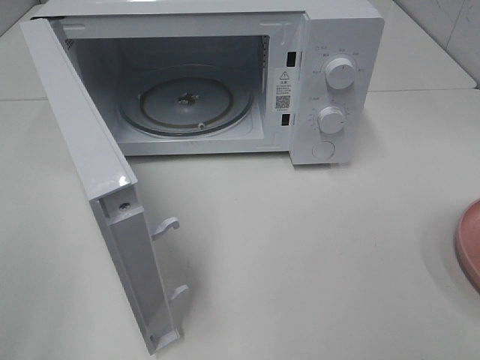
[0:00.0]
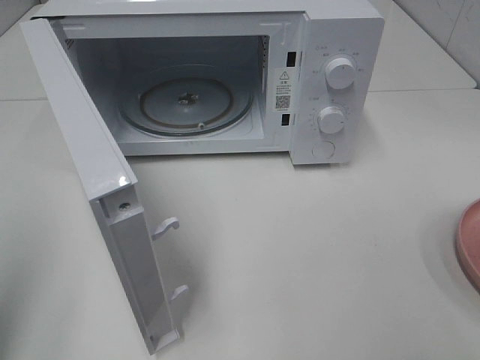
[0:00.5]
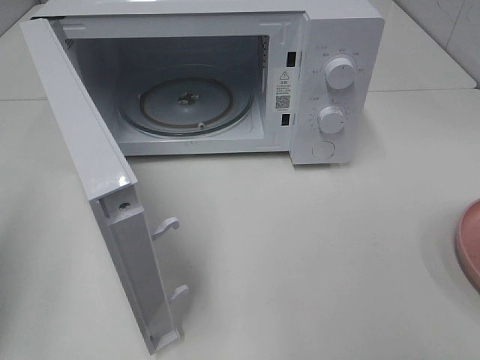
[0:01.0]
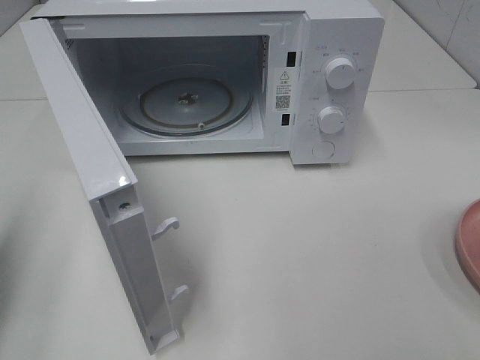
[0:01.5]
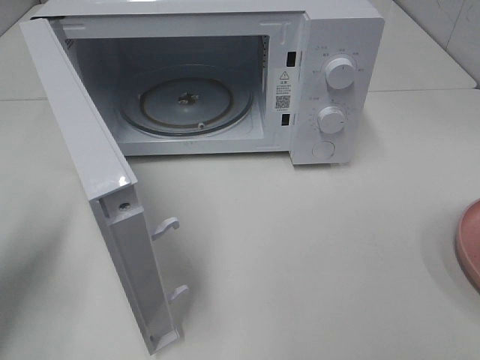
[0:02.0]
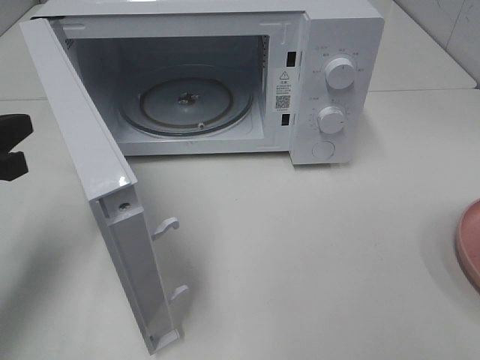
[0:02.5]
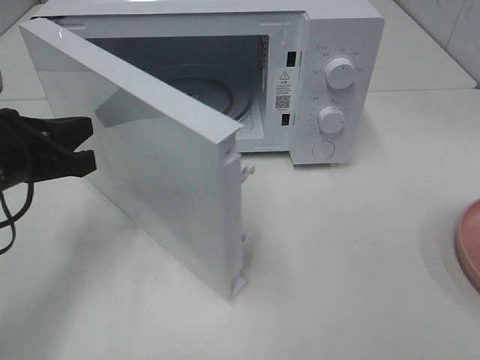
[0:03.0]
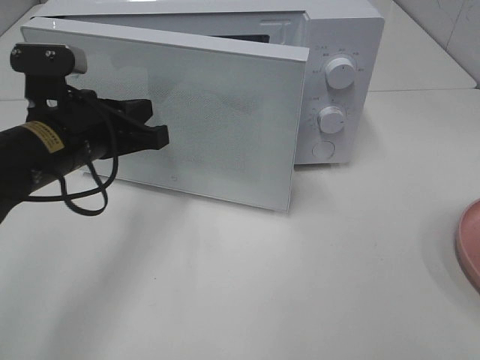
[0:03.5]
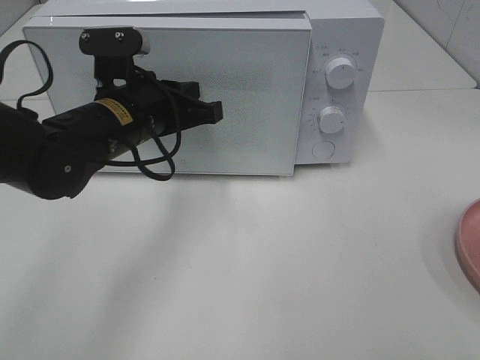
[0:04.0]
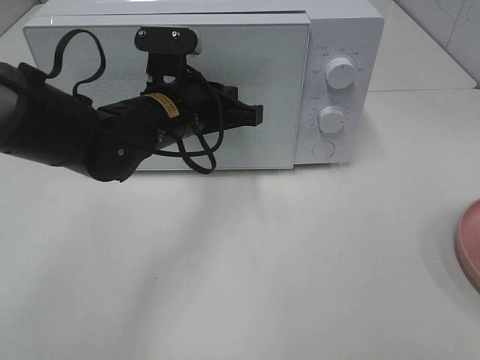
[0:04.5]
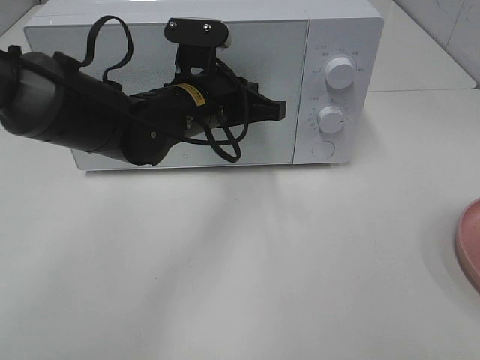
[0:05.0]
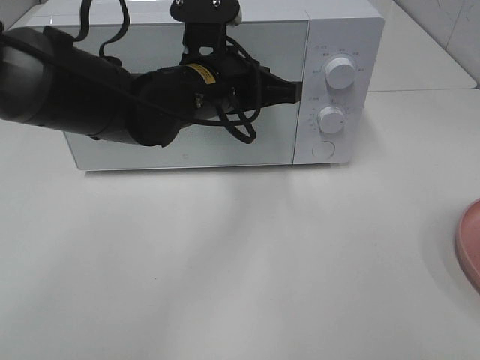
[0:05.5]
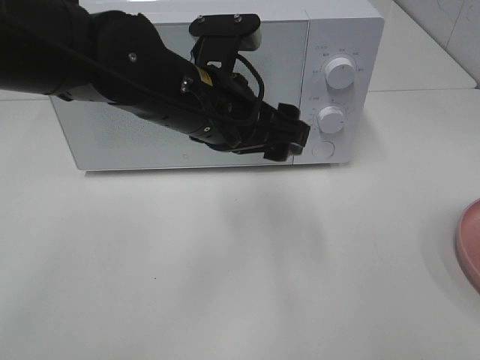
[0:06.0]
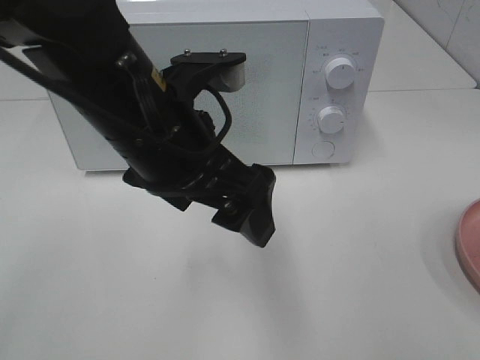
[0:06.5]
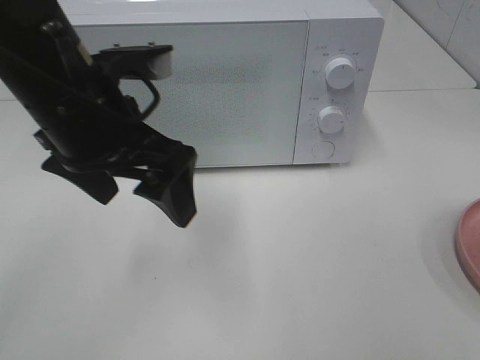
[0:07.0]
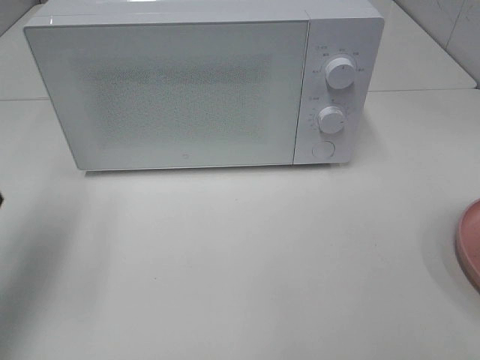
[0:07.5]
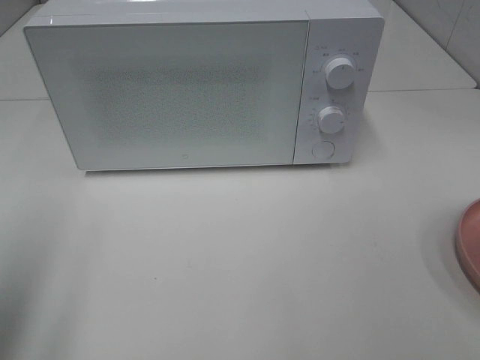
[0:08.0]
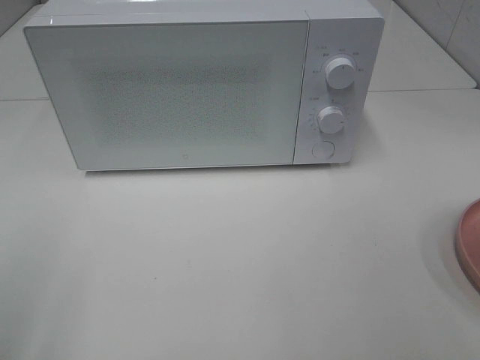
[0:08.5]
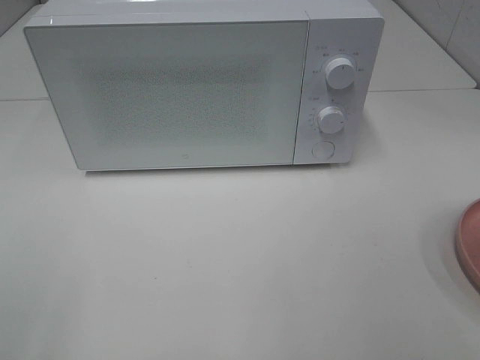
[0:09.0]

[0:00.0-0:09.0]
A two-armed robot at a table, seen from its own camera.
Task of the whole recording: Heat the burger.
Step, 0:00.0 to 0:05.0: Left hand: close the microwave door.
0:00.0 to 0:02.0: The left gripper is displaced forward and downward by some 20 cm, and closes.
0:02.0 to 0:04.5: The left gripper moves to the right and forward, approximately 30 cm.
0:04.5 to 0:07.0: The left gripper goes about 15 cm upward, backward and to the left, and opens up.
0:07.0 to 0:09.0: The left gripper goes approximately 30 cm backward and to the left.

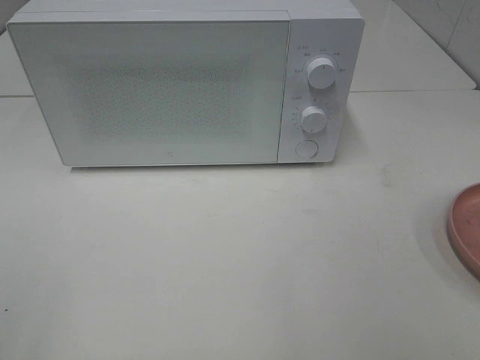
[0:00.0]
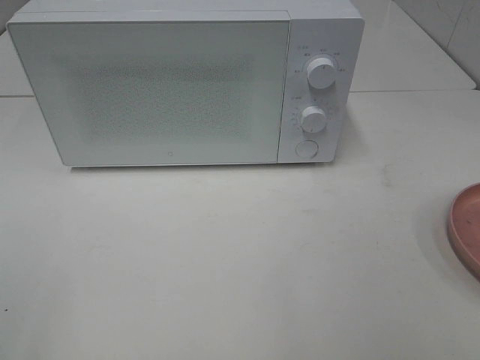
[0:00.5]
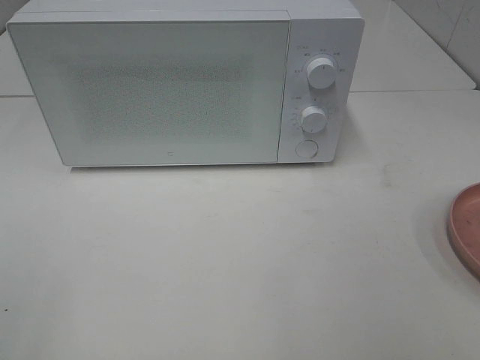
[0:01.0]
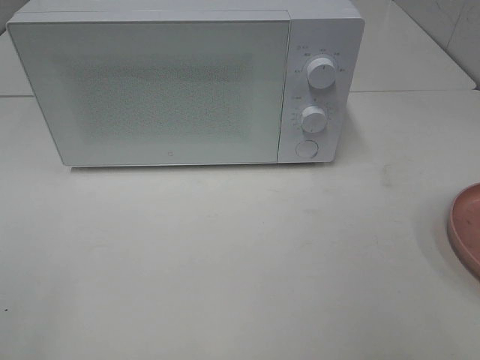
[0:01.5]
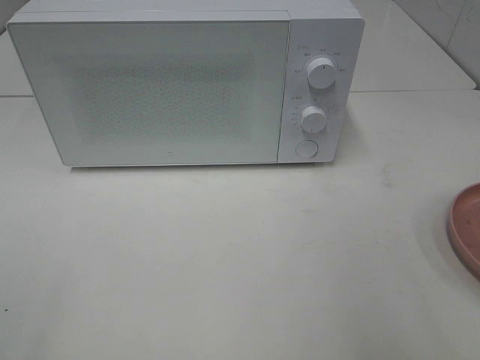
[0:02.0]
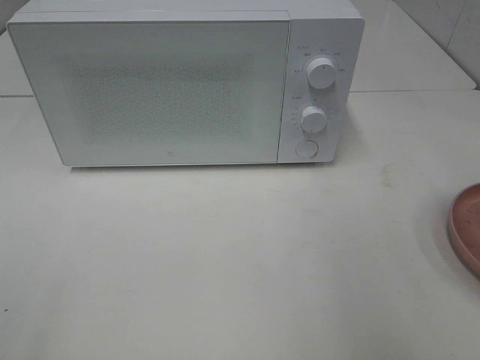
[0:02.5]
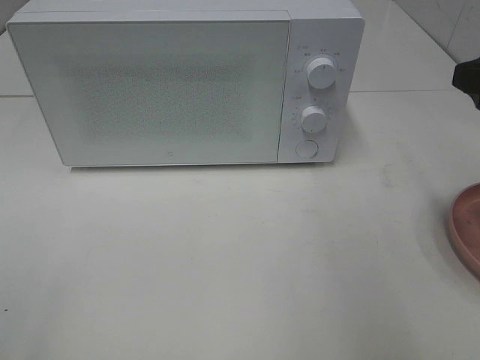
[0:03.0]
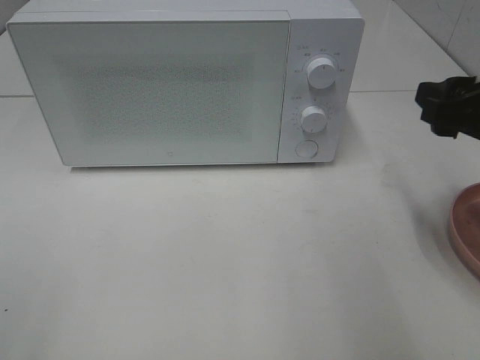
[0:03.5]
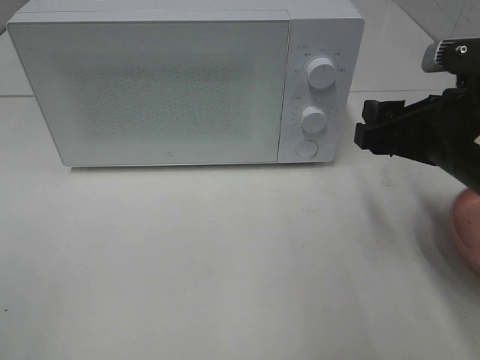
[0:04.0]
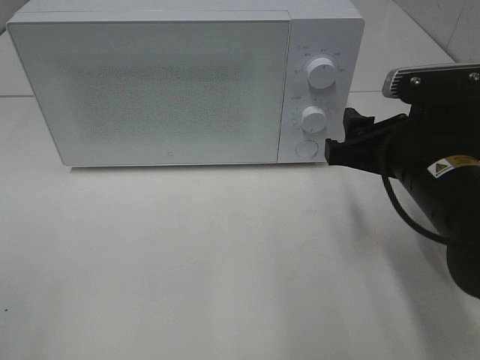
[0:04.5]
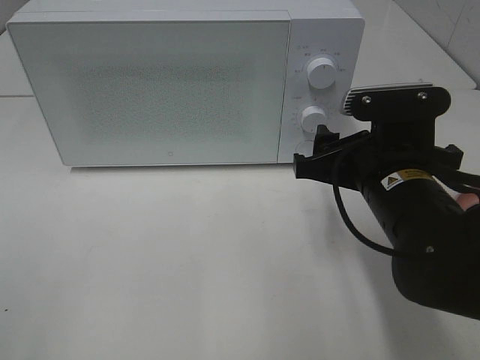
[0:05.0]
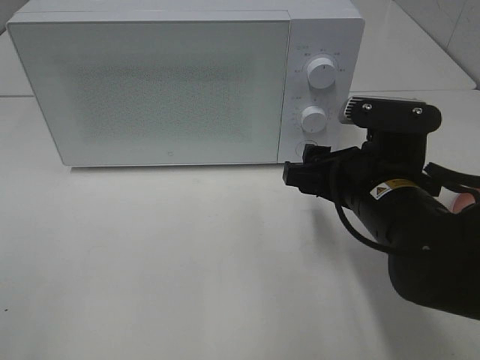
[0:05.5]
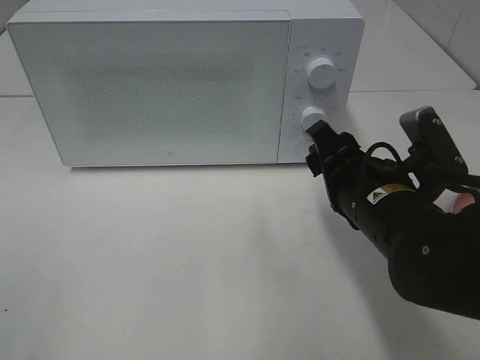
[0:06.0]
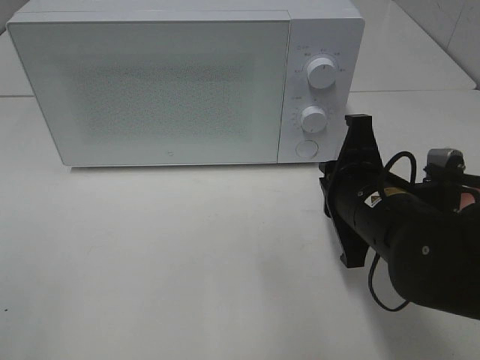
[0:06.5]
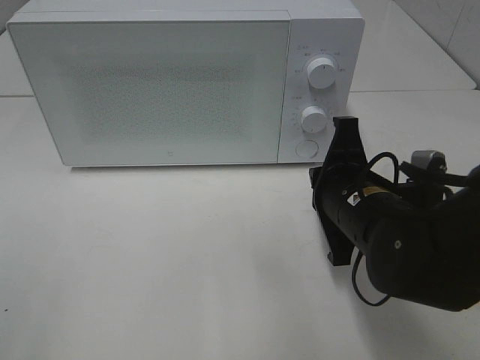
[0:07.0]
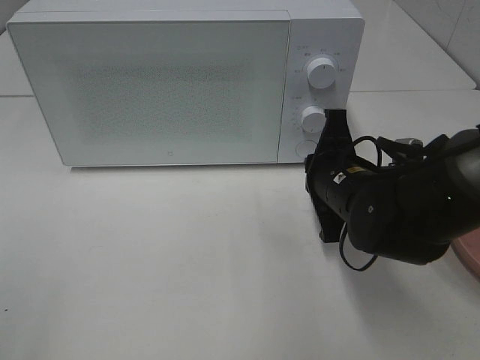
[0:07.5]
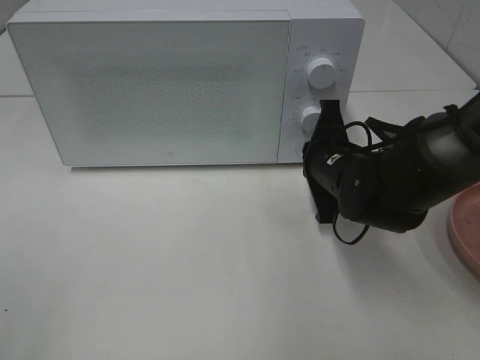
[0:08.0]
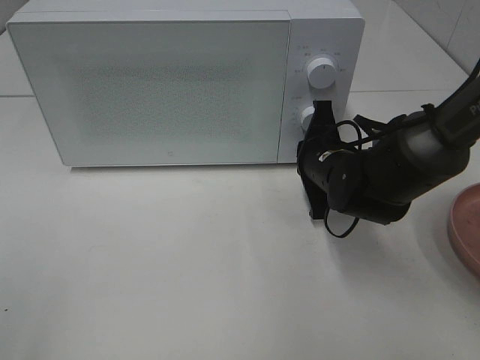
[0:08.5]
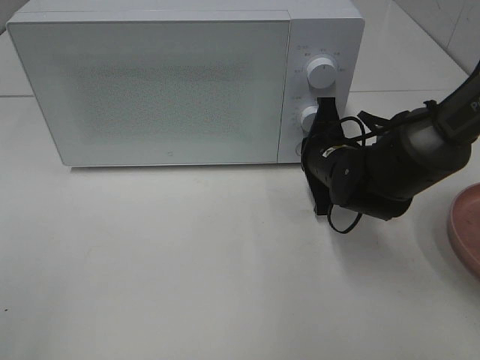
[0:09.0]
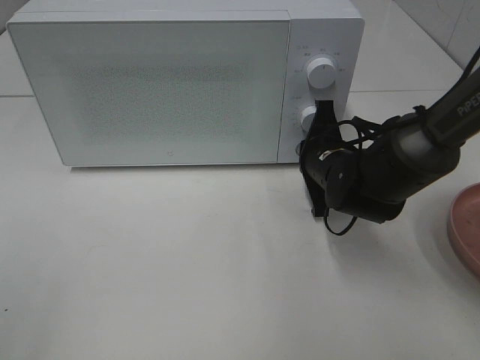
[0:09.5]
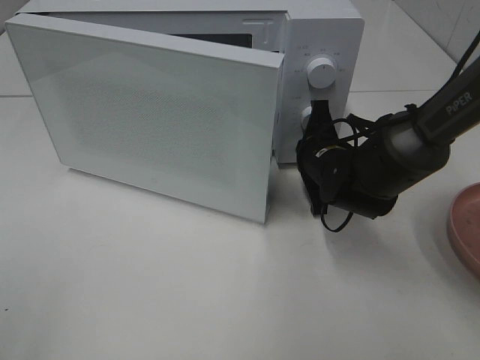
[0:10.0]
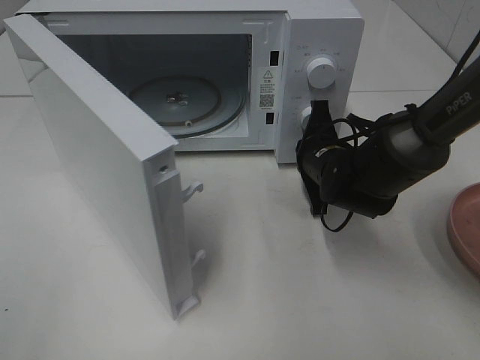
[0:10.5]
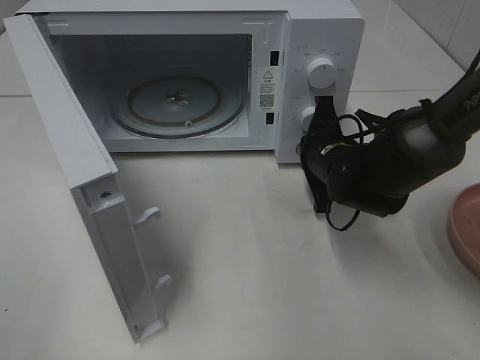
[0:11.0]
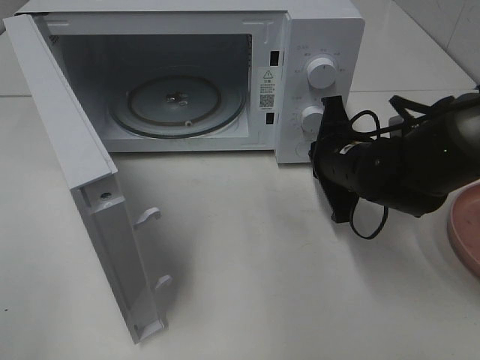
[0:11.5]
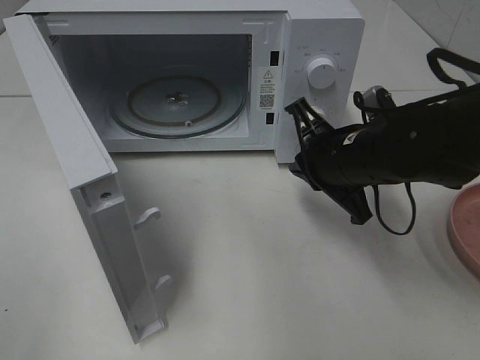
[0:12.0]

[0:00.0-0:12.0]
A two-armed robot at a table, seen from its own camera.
Task of the whole recording: Heat the burger.
Step, 0:00.0 to 0:11.5: Right hand: press the switch.
0:02.0 to 0:04.0: The right gripper is displaced forward, downward and to the left by about 15 cm.
0:04.0 to 0:06.0: The right gripper is displaced to the left and downward by about 10 cm.
0:06.0 to 0:08.0: The right gripper goes some 10 cm forward, and closes up.
0:08.0 to 0:10.0: The grippers stay close to where they were, moving slightly.
0:10.0 to 0:12.0: The right gripper heads backward and upward, covering some 10 cm.

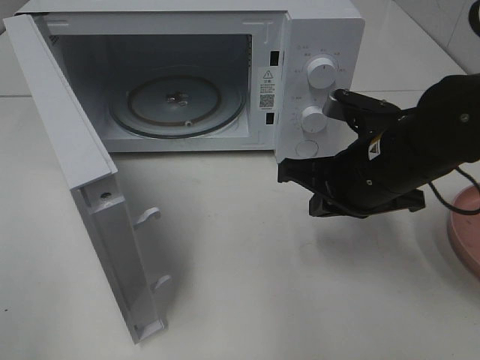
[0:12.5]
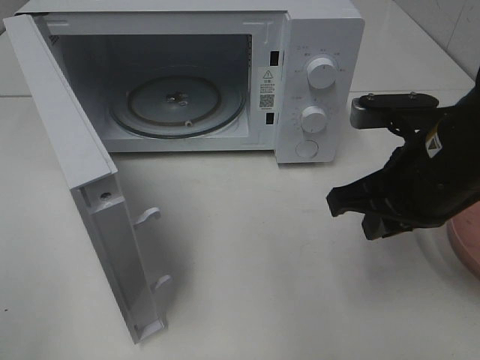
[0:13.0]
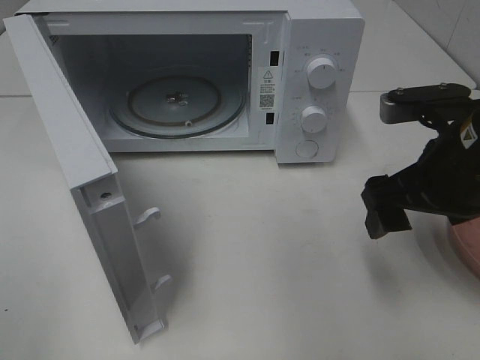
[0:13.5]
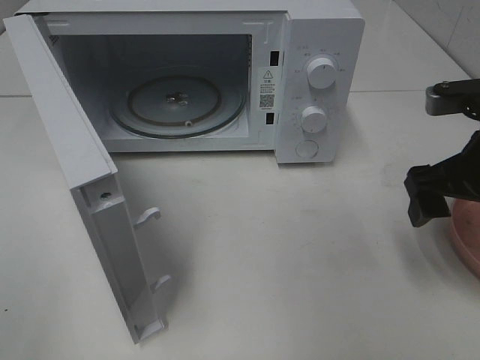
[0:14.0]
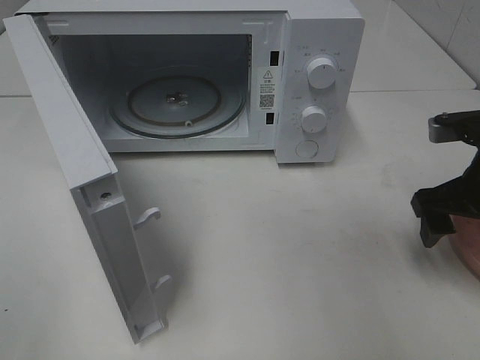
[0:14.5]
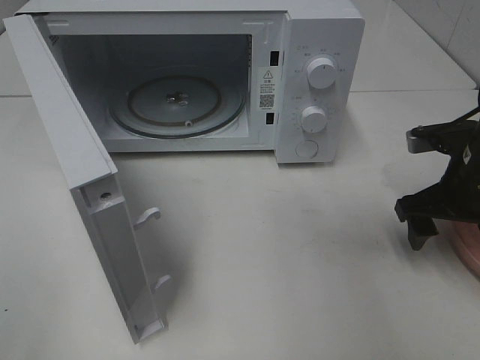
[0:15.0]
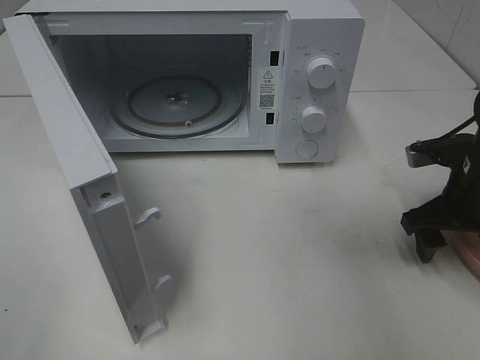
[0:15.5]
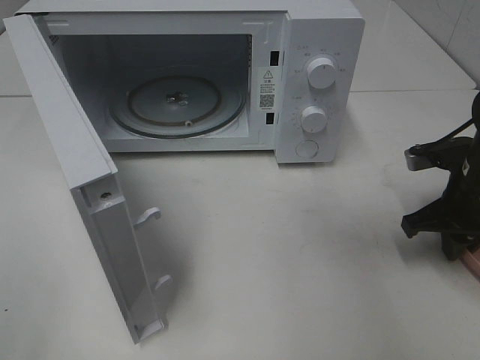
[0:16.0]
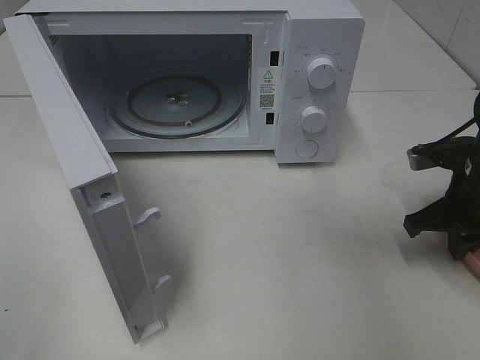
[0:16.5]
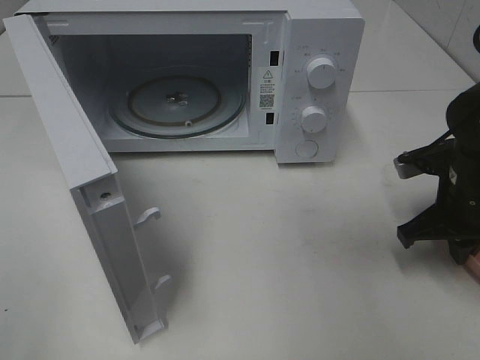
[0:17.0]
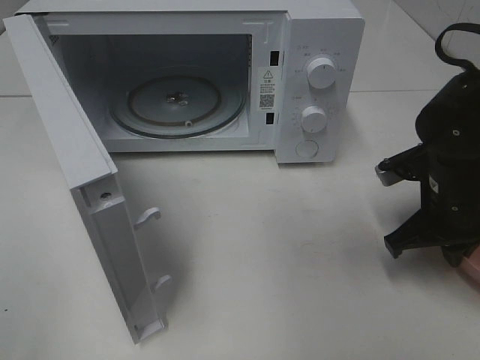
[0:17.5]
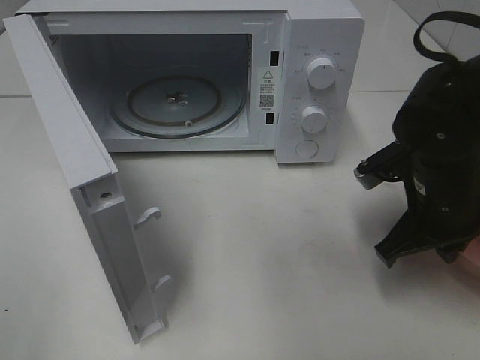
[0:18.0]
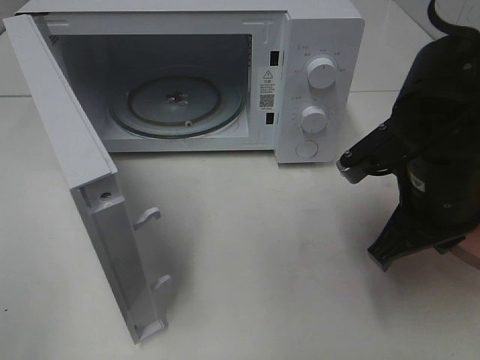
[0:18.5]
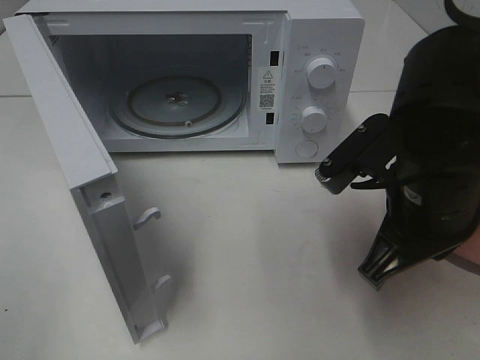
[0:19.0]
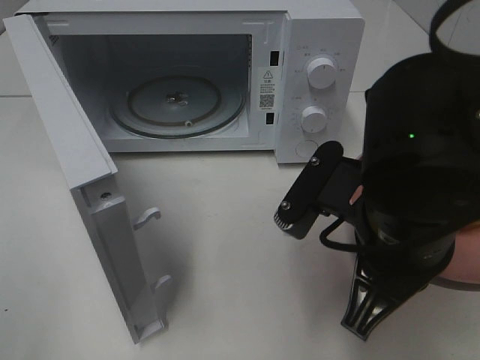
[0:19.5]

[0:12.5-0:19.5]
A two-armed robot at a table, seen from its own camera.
Task of the whole recording: Heat the burger.
Step, 0:12.5 to 0:16.5: Right hand: grab the plate with the hamburger.
0:12.5 to 0:14.5: The right gripper moves to the right, approximately 10 cm, and opens its fingers.
0:14.5 to 0:16.0: The right gripper moves downward, roughly 5 cm, and closes up.
0:16.0 to 0:17.5: The right gripper changes place by about 5 cm.
0:17.5 to 0:19.5: The right gripper shifts some 20 cm to the left, backward and upward.
